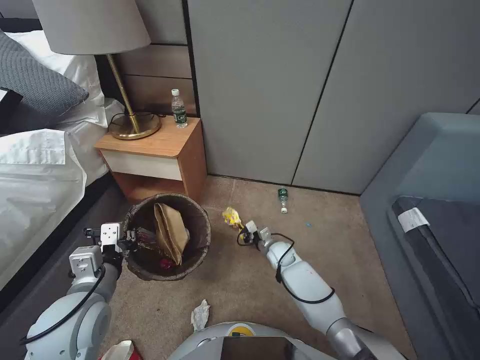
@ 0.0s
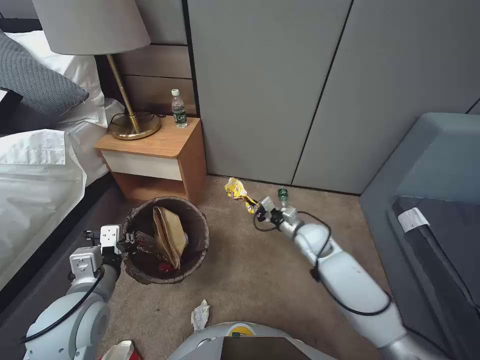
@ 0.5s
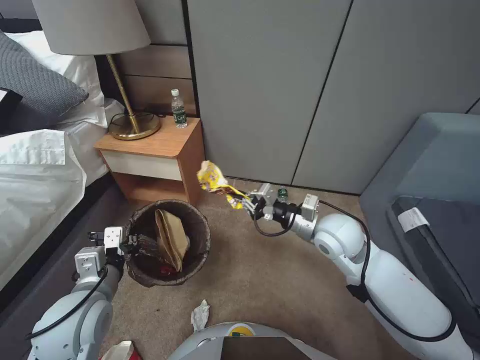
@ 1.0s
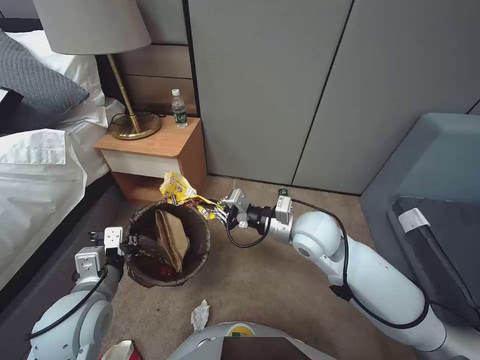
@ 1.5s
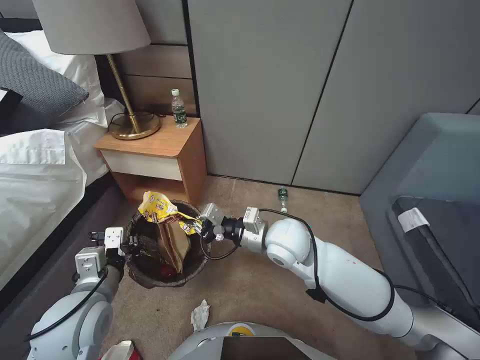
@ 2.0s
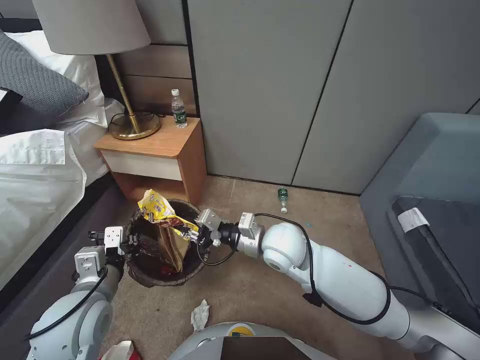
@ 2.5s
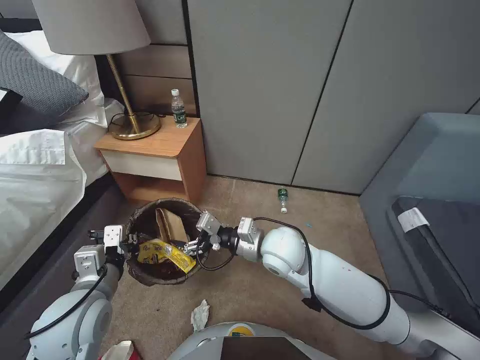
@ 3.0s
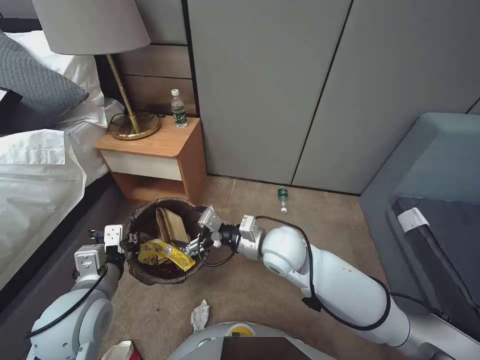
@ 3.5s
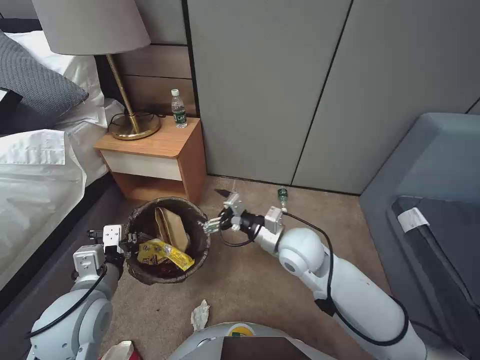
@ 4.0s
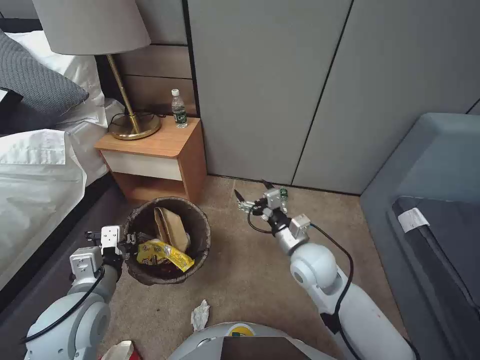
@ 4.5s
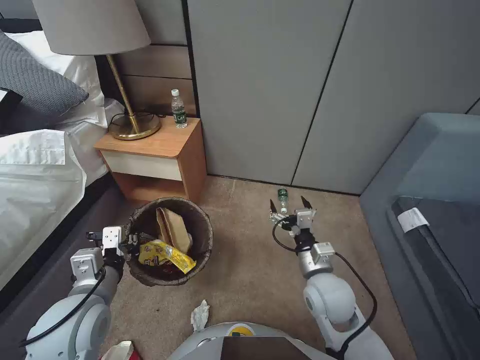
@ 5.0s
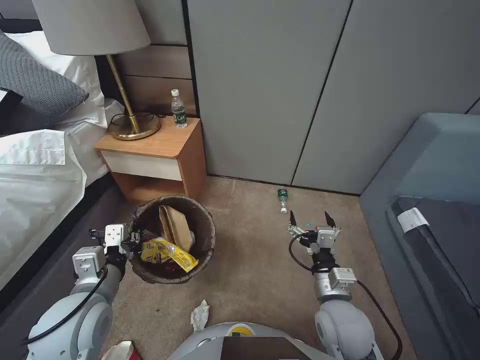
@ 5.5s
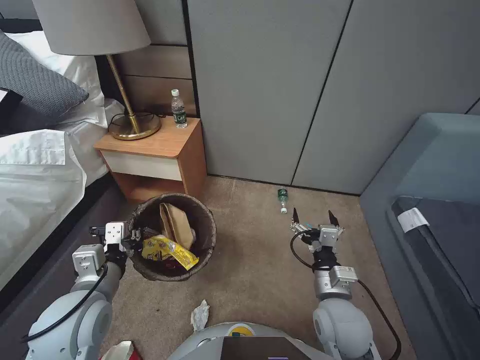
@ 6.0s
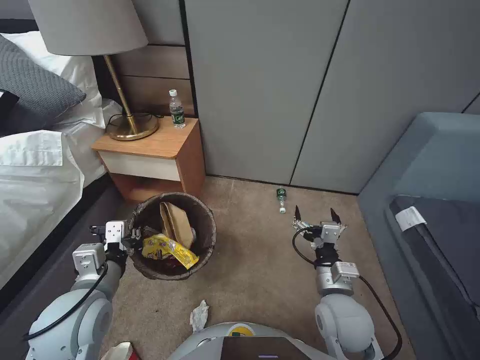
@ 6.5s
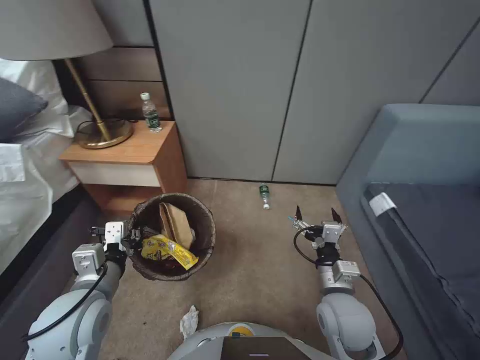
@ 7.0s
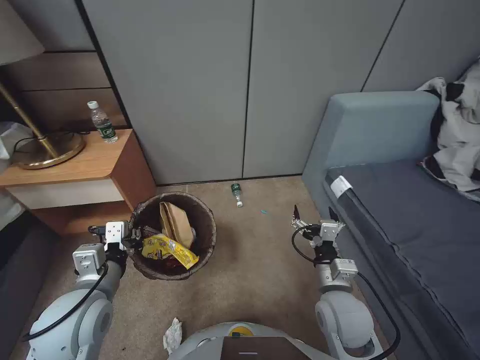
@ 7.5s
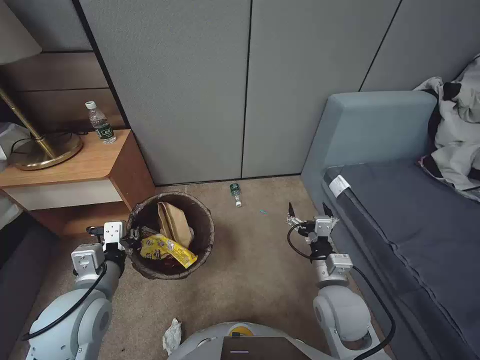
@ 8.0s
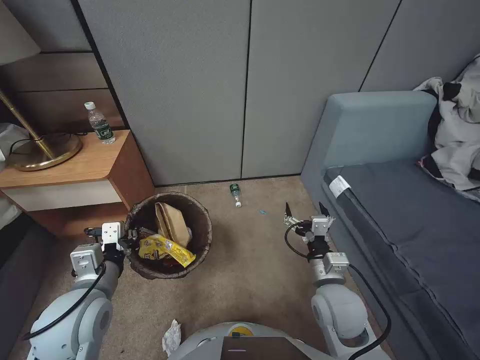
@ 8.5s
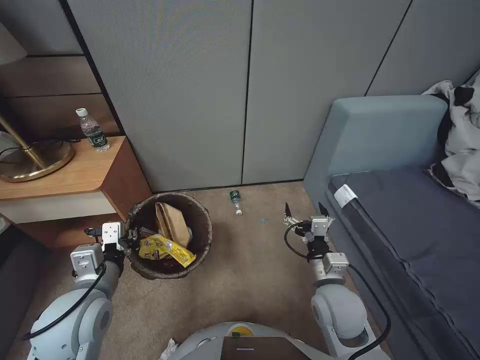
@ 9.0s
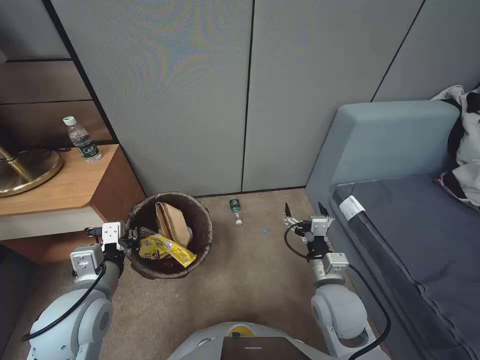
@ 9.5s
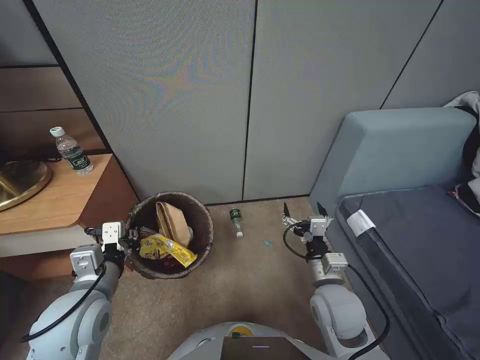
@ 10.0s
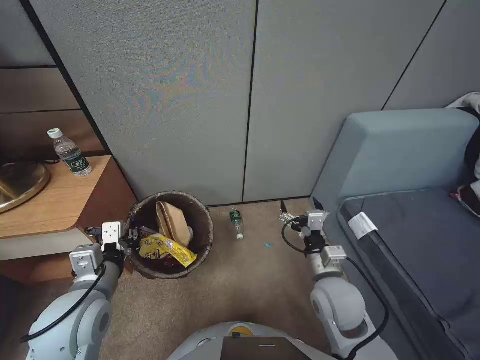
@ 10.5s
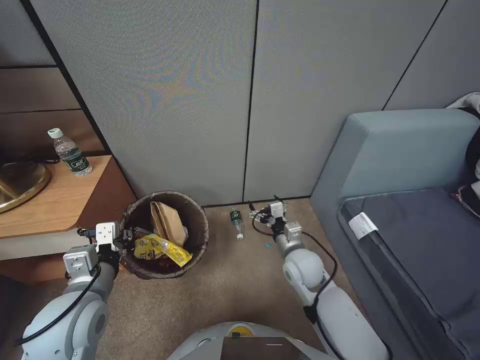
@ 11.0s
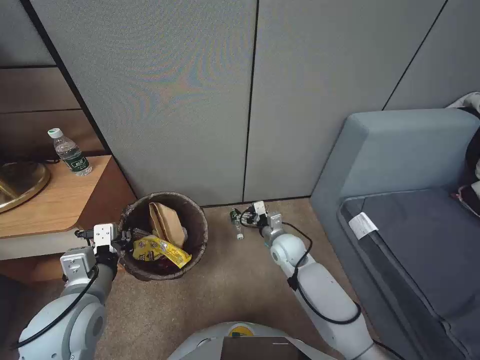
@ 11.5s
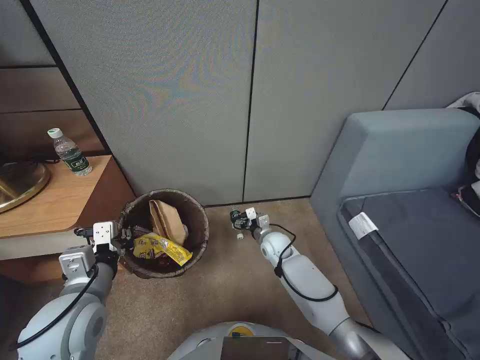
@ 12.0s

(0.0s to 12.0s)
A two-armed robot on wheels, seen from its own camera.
Task of the whole recording: Pick up the trash bin, then pick up the garbage from the floor and place it into the trash bin.
0.0s - 2.0s: The right gripper goes roughly 30 cm upward.
2.0s - 4.0s: The right gripper opens its fingers.
4.0s - 6.0s: The right gripper goes roughly 15 cm backward, downward and to the right.
10.0s - 12.0s: The right gripper moves forward and downward, some 25 cm.

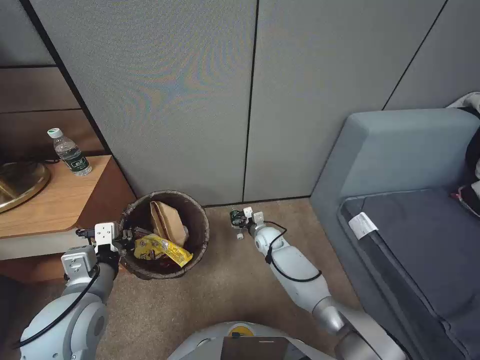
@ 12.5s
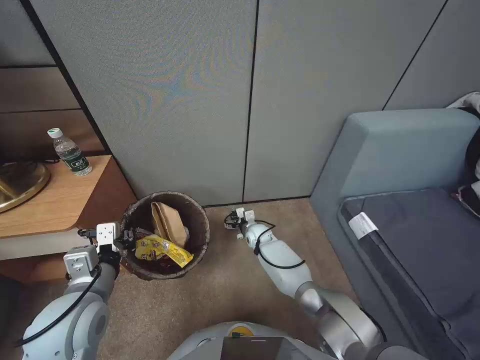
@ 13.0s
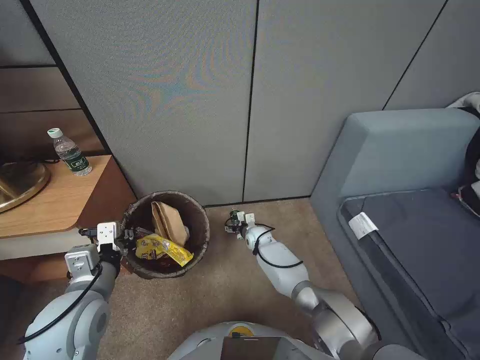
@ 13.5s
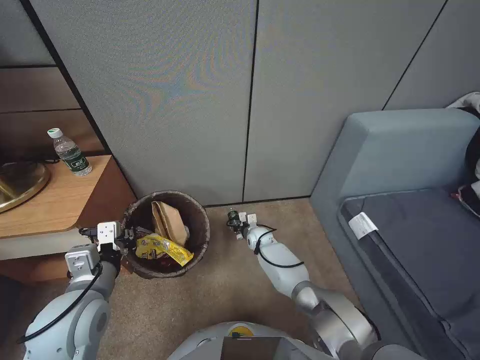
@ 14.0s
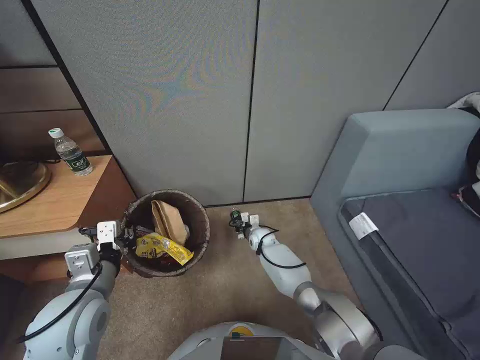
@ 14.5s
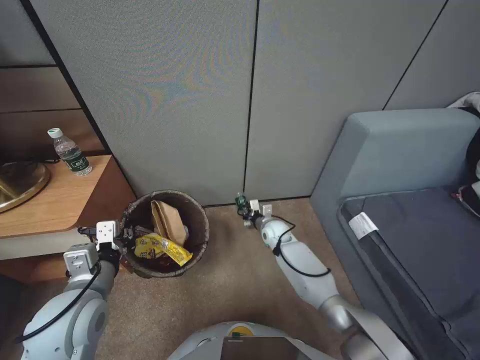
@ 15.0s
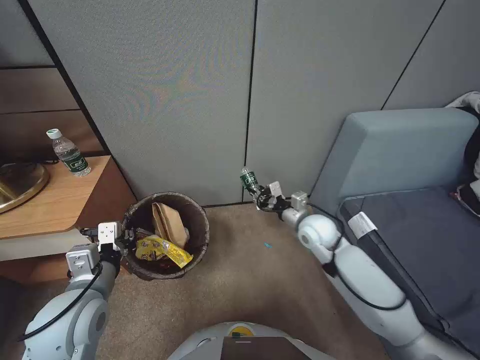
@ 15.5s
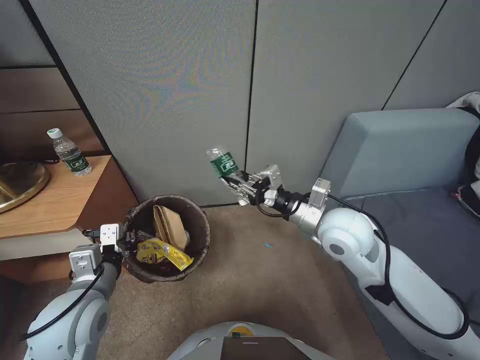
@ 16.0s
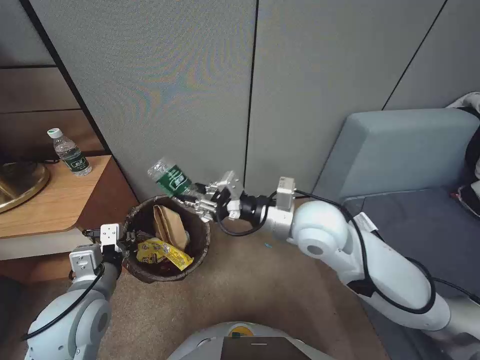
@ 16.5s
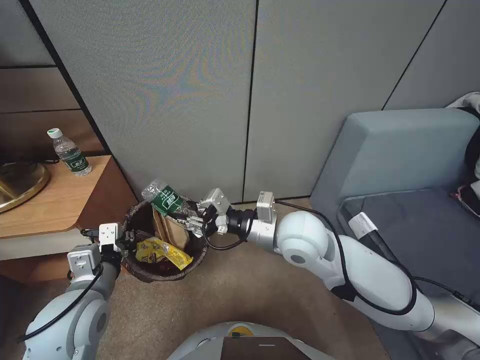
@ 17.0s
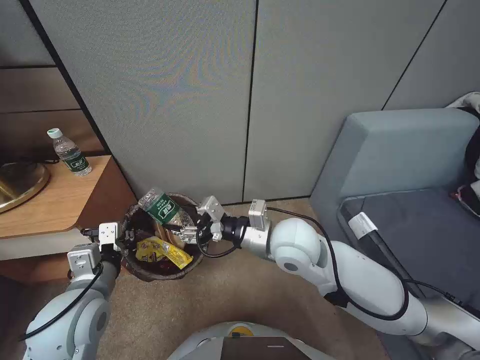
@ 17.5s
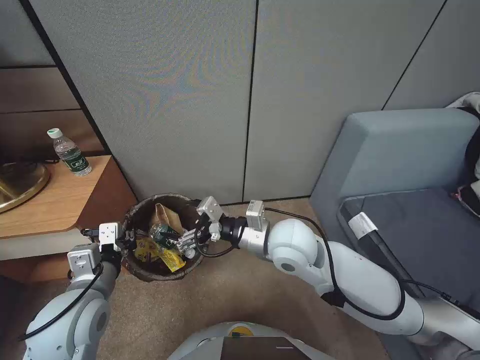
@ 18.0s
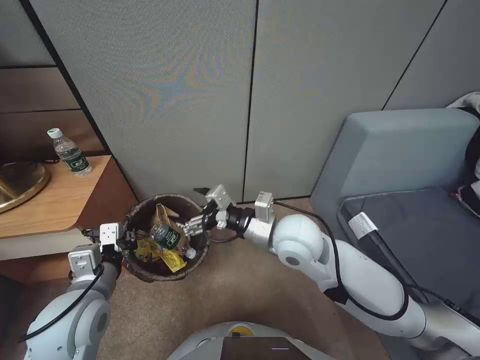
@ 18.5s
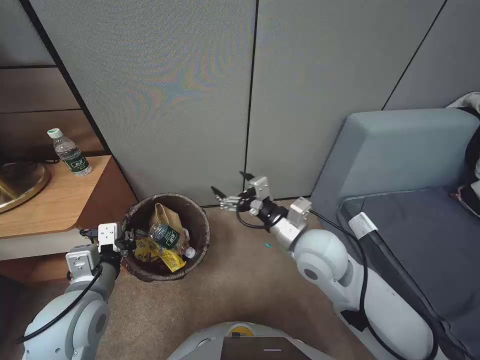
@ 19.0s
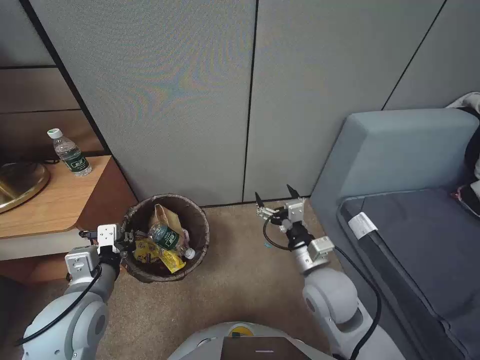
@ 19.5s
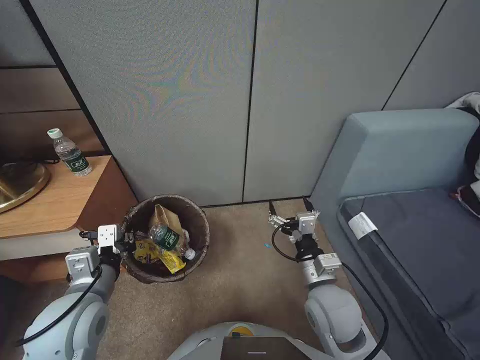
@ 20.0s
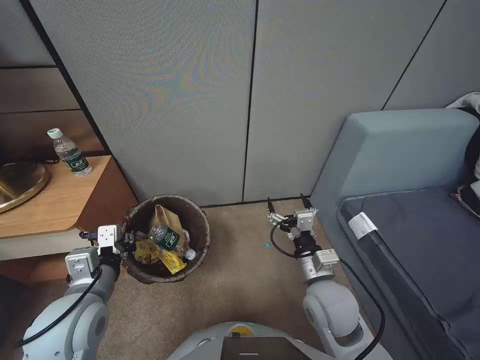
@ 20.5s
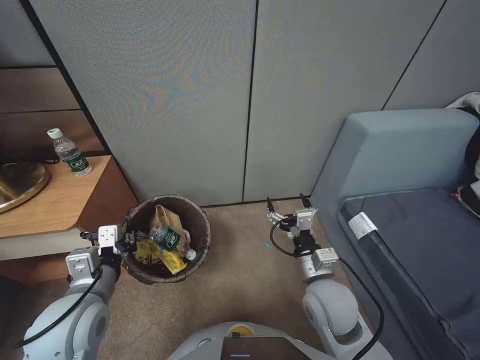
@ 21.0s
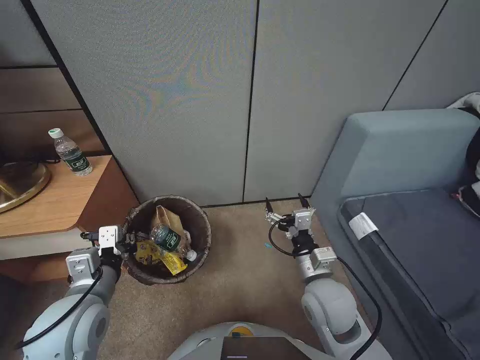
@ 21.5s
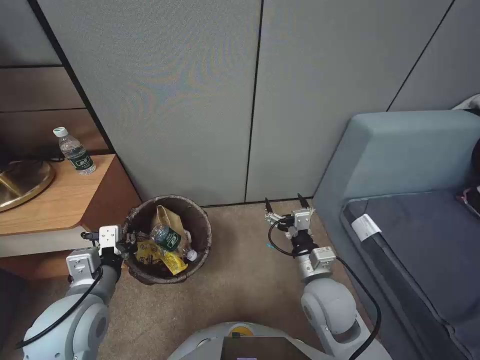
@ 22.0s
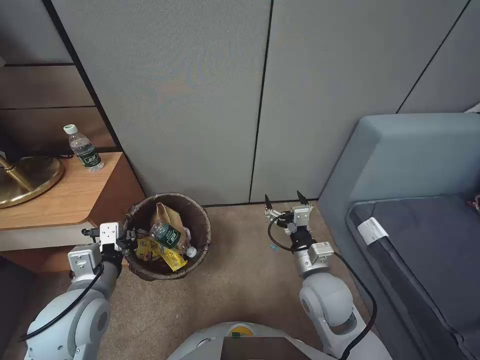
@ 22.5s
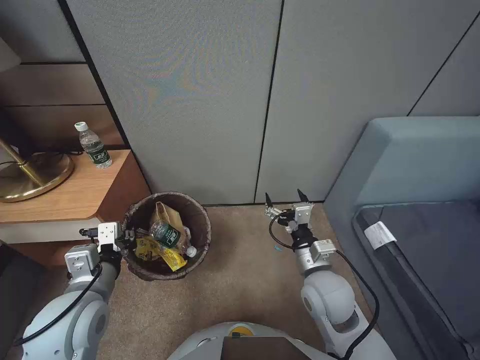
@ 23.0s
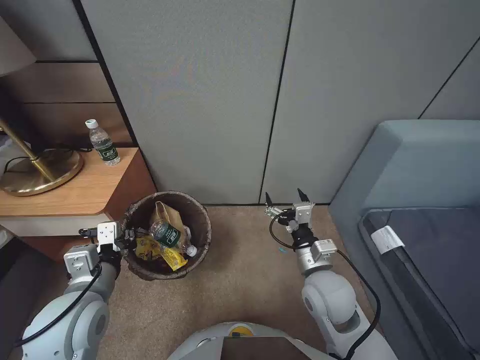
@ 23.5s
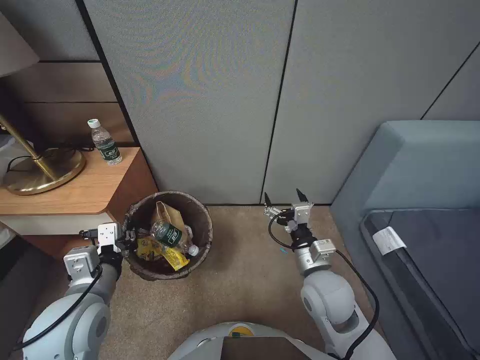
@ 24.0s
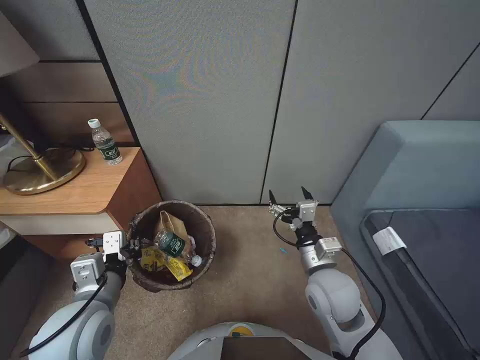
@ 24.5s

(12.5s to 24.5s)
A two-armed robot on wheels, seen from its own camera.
Task of the whole recording: Pick up the trash bin, then pick up the garbage from the floor and place it into the trash bin.
12.5s - 14.5s: The right gripper ends up approximately 5 cm from where it was, and closes up.
14.5s - 16.5s: The right gripper is displaced upward and backward by roughly 40 cm.
16.5s - 18.5s: The right gripper ends up roughly 5 cm from where it was, and opens its fingers.
18.5s - 20.5s: The right gripper shifts roughly 15 cm downward, backward and to the right.
20.5s - 22.5s: There are only small adjustments of the grippers.

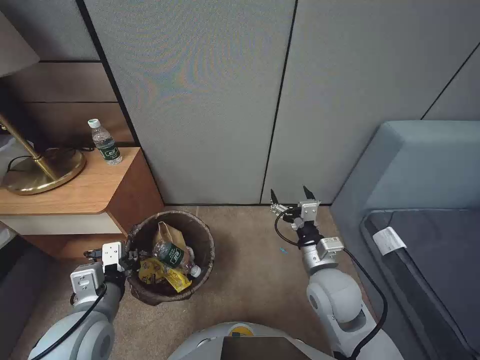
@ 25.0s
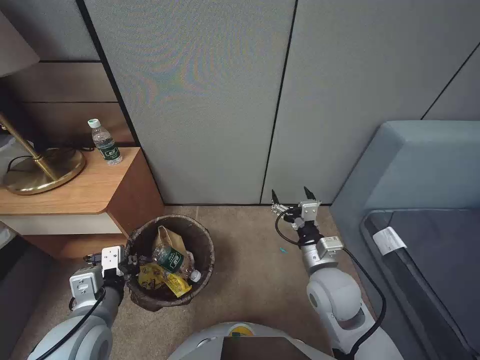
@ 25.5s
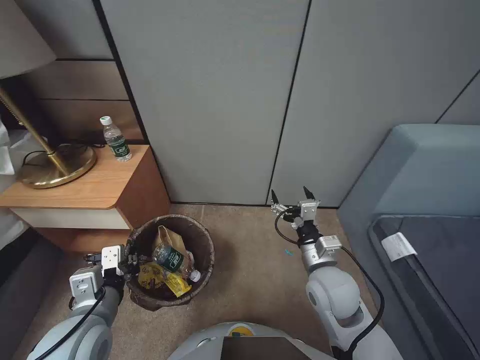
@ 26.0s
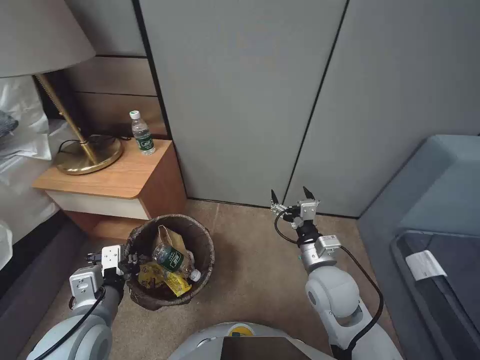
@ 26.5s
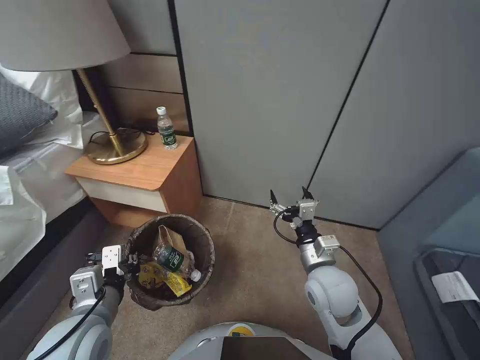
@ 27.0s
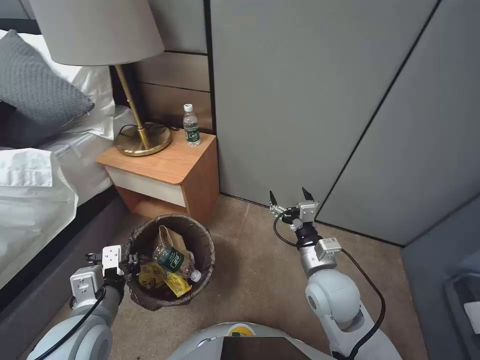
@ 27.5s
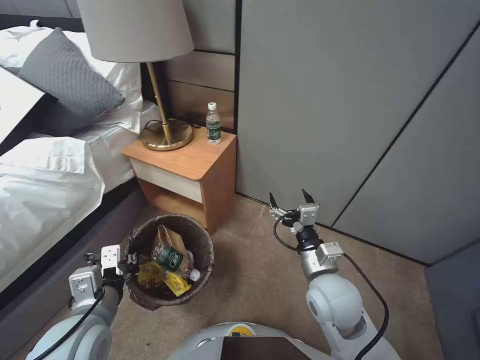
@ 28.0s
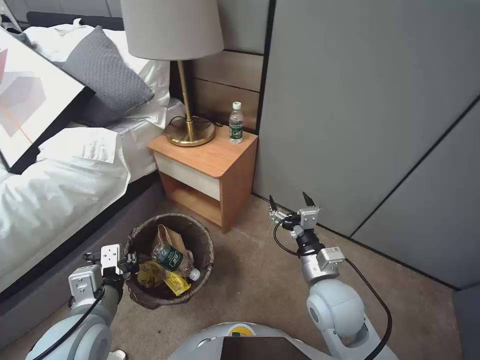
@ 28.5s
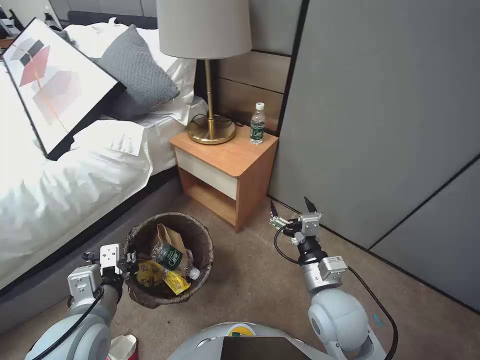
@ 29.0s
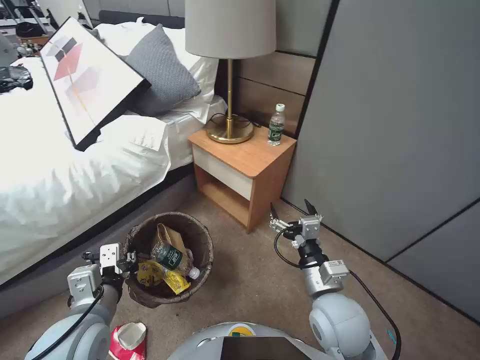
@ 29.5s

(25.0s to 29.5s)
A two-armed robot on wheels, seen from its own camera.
Task of the whole recording: Pick up the trash bin, then pick up the garbage from the floor and place it into the trash bin.
27.0s - 29.5s: The right gripper heads backward, covering about 5 cm.
